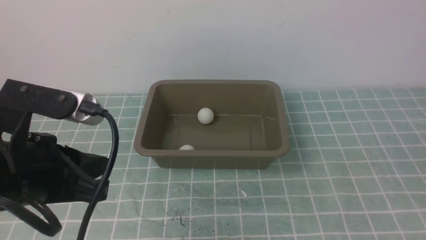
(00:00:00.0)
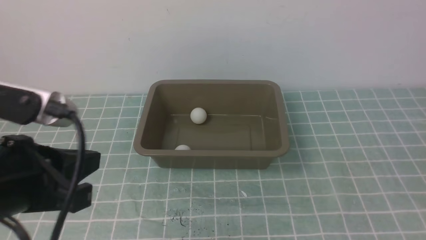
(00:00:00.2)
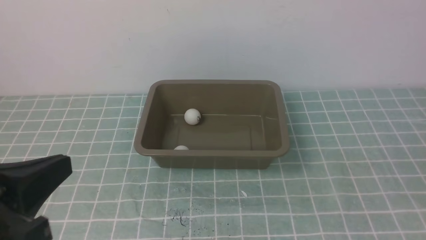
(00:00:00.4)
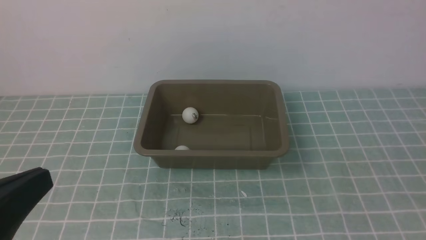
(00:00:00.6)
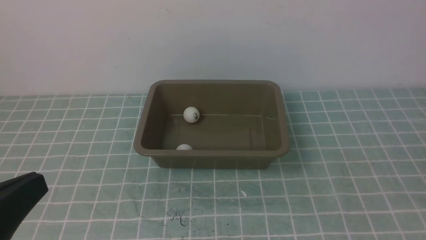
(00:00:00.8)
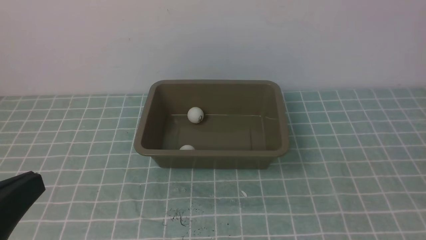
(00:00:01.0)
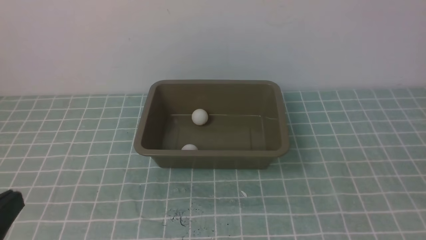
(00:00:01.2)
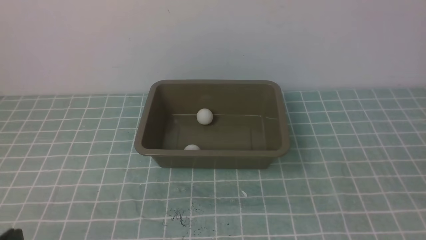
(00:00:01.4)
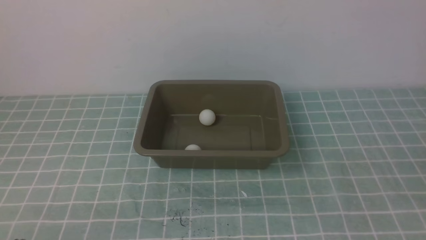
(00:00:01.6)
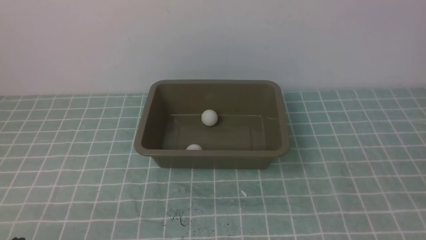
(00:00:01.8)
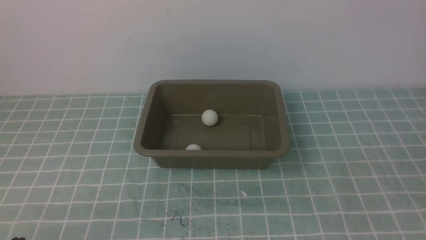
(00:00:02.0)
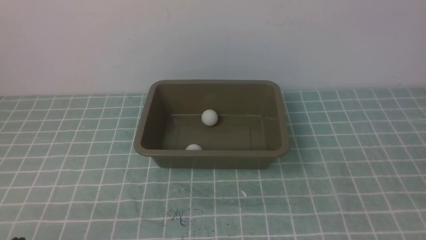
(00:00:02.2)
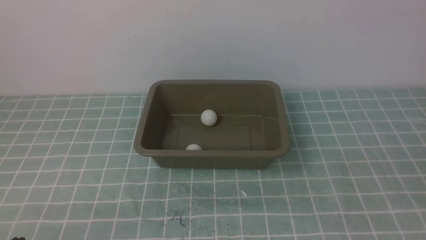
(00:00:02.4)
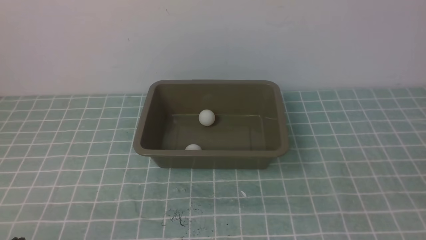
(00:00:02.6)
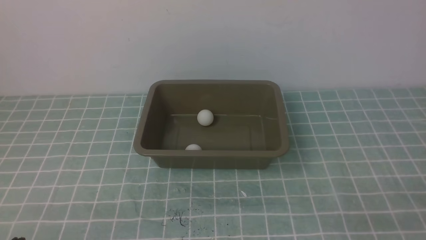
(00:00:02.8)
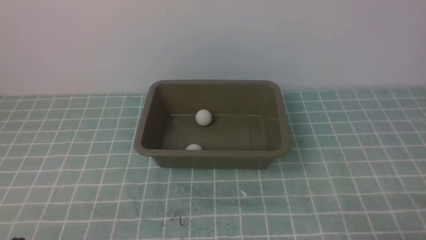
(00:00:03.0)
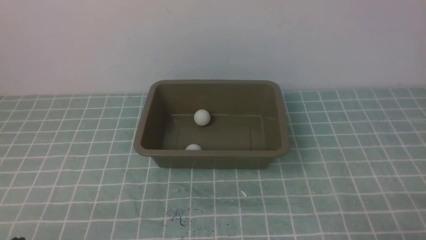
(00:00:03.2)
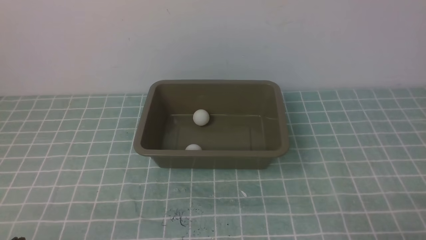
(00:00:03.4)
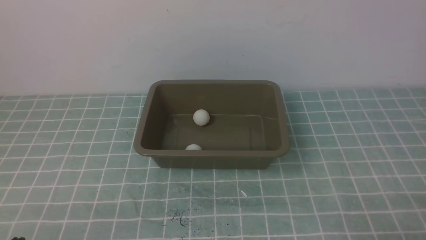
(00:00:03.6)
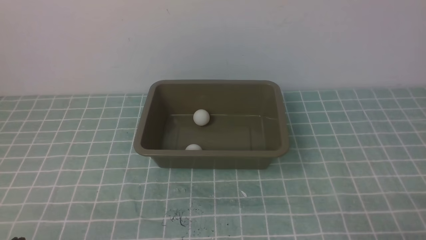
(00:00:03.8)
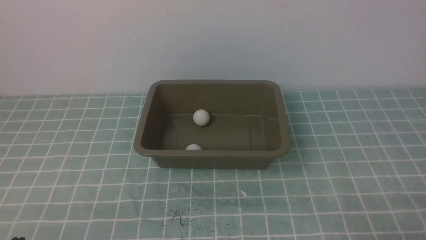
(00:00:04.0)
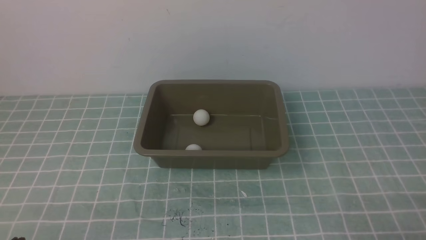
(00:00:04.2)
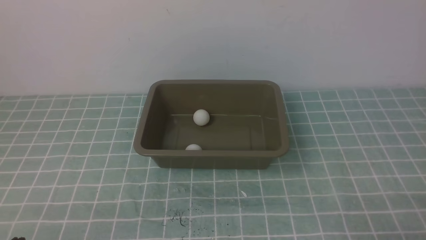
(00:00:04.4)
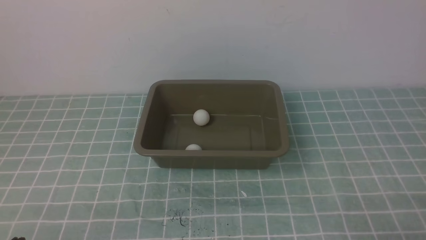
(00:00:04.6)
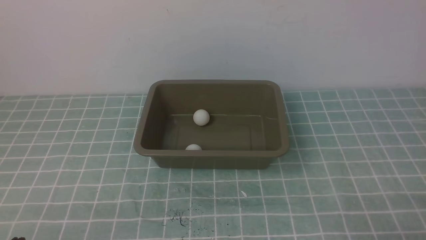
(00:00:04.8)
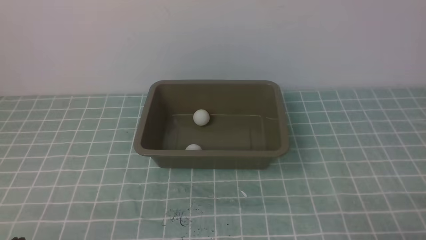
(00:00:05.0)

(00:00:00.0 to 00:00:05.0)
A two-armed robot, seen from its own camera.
00:00:00.0 - 00:00:01.6: The left gripper shifts some 20 cm downward, backward and to the left.
00:00:03.4 - 00:00:05.0: The two grippers keep their place.
